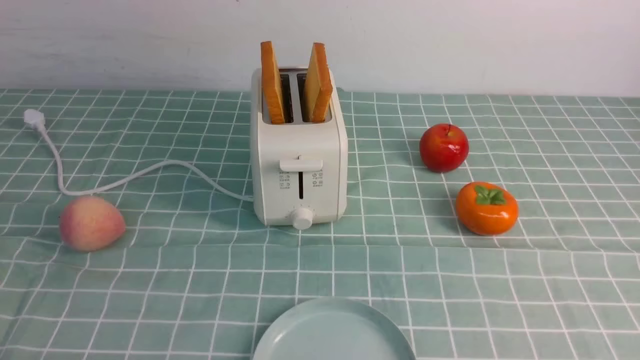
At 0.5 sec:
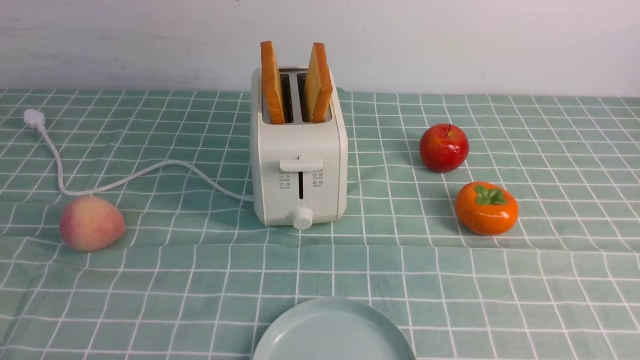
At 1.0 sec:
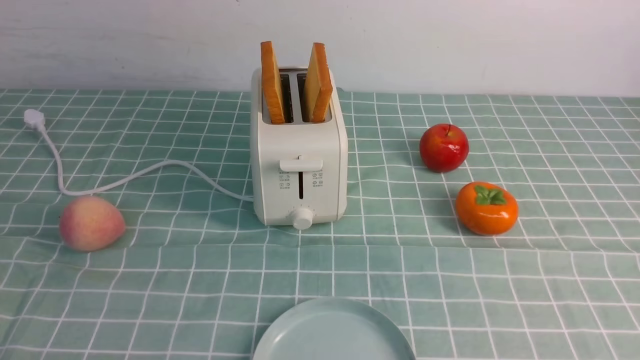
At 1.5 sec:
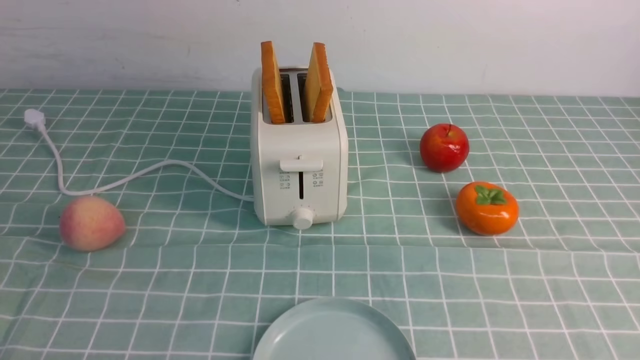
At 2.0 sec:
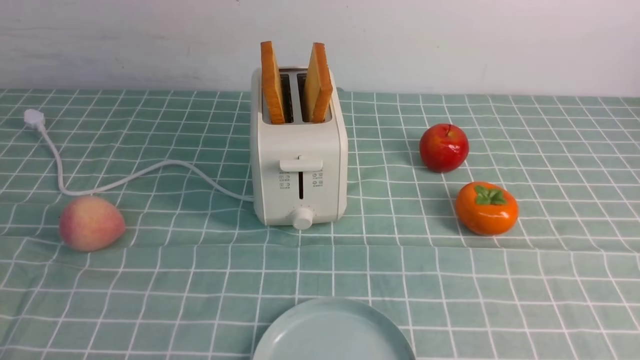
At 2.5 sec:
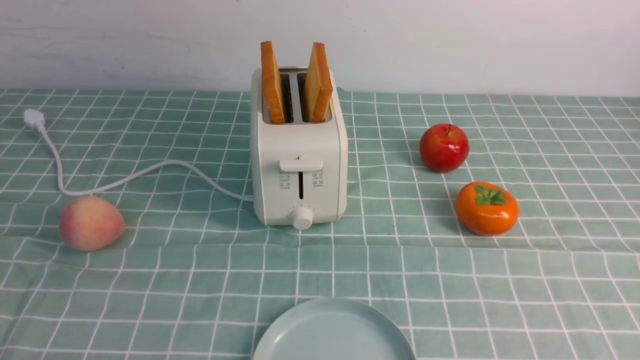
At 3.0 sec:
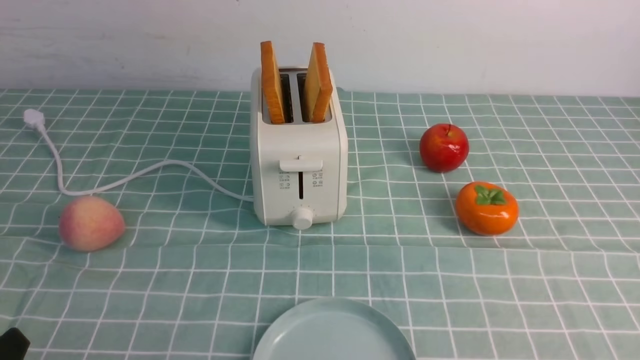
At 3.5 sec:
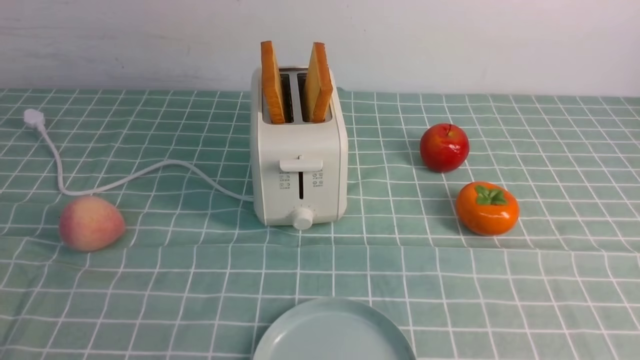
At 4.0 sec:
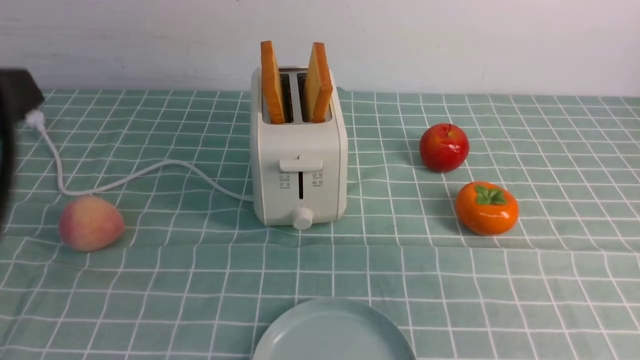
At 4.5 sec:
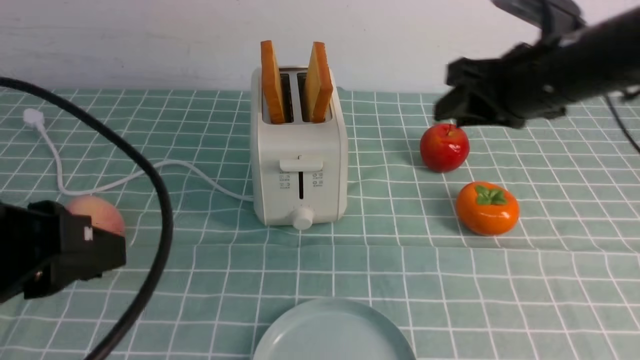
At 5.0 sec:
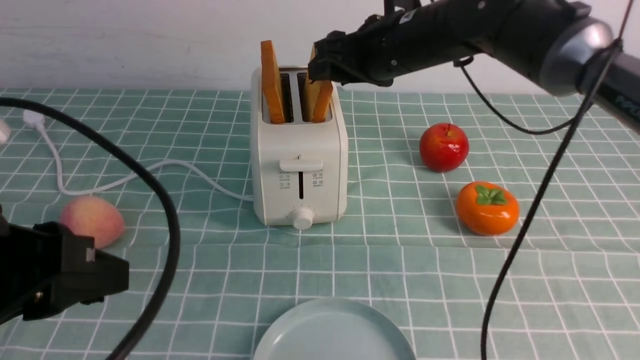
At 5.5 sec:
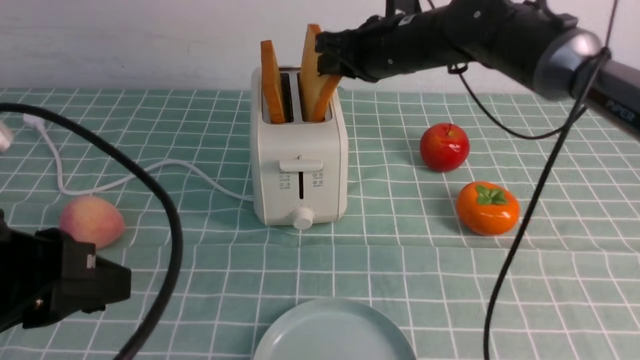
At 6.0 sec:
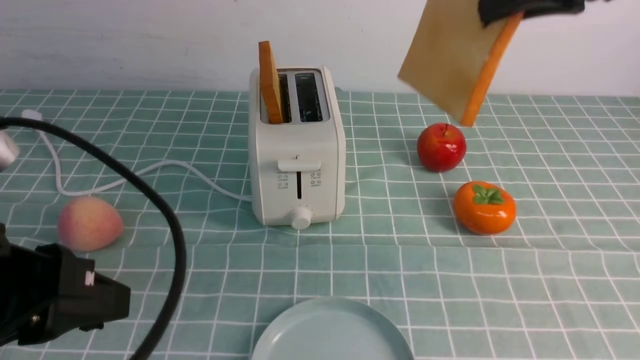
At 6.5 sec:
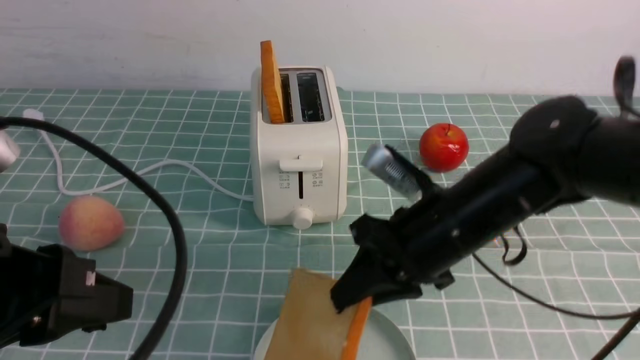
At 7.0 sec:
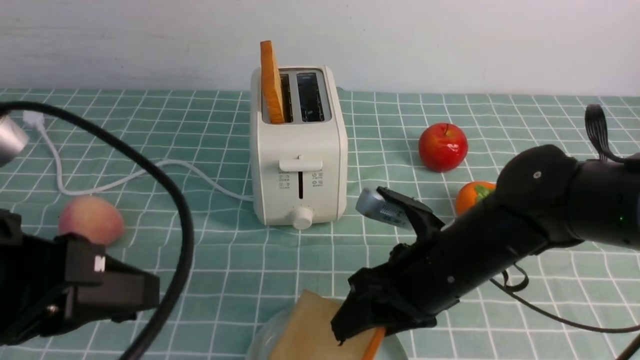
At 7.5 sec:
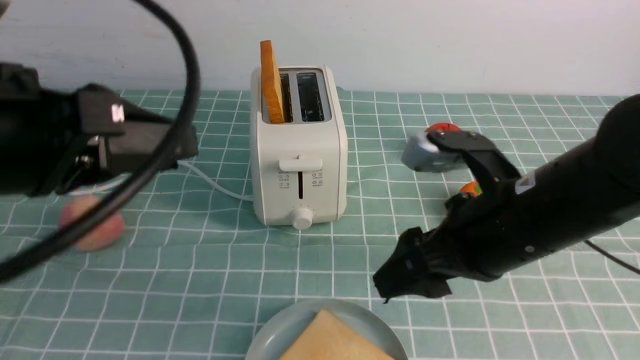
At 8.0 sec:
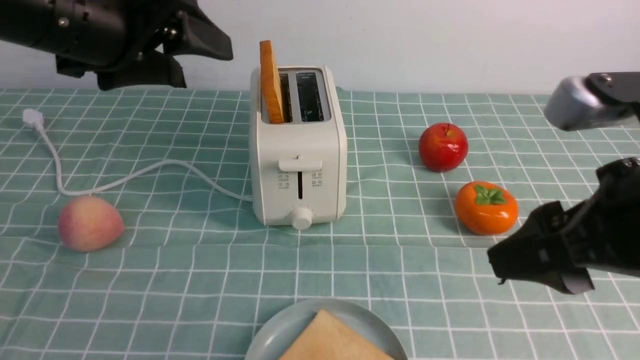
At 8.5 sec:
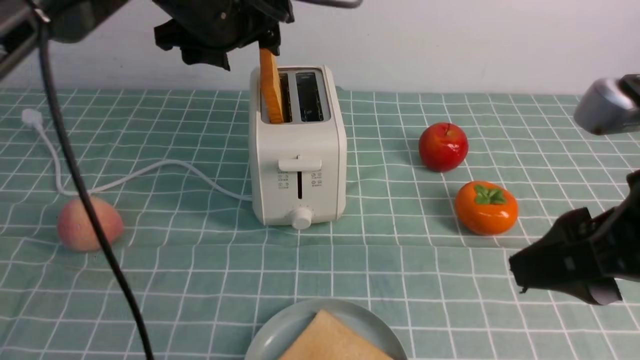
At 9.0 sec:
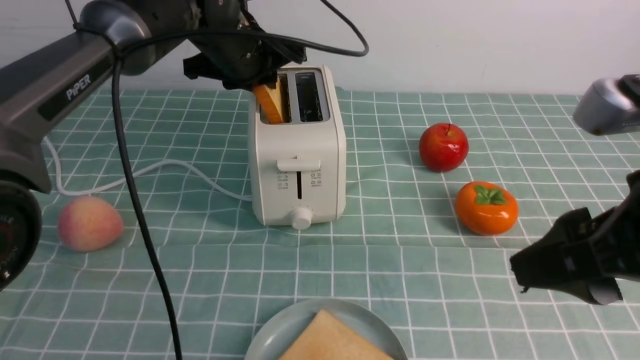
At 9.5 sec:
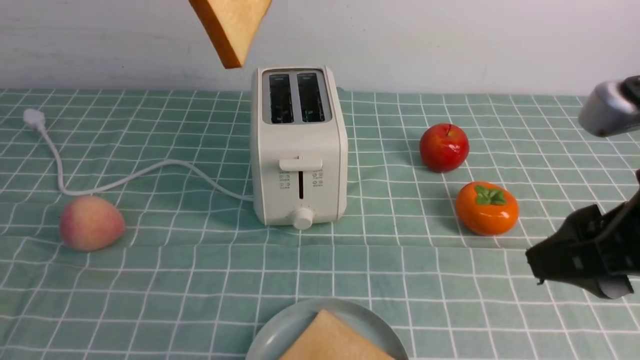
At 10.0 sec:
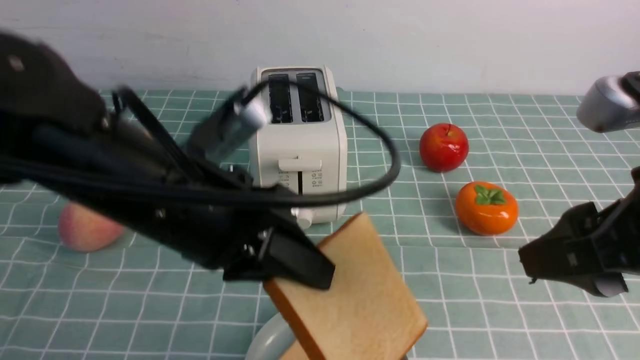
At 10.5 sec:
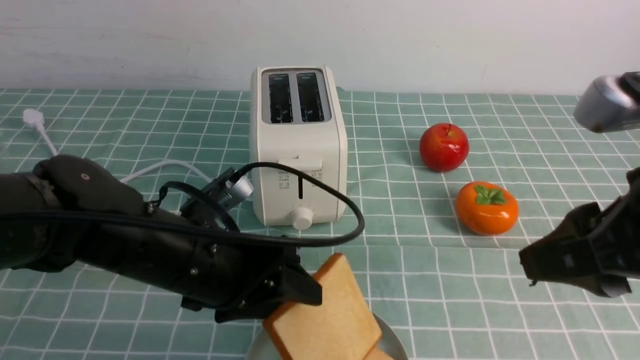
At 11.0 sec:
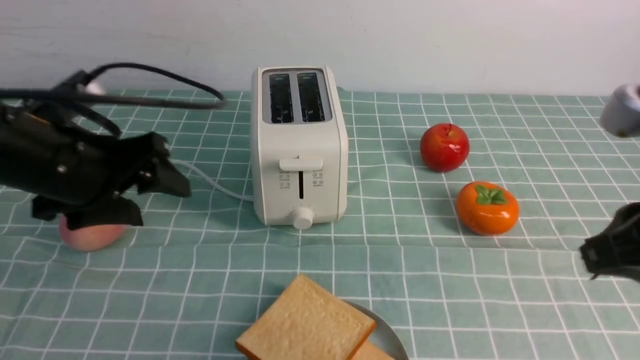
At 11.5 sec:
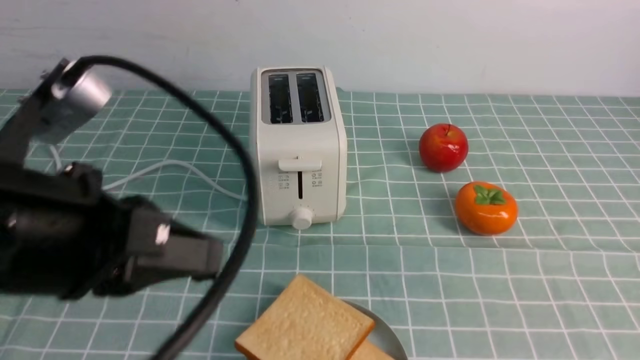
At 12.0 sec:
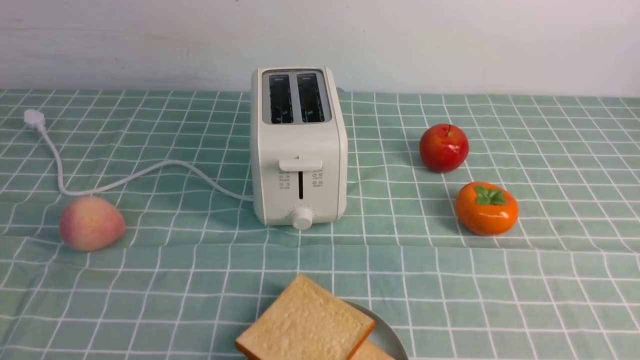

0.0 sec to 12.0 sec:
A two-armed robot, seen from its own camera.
Task of the whole recording: take toasted bread from bread machine on blue coffee table place on plate.
Step, 0.0 sec to 5.5 sec: use the right arm to take out a slice of bread.
Step, 6.0 sec to 7.0 sec: use the right arm to put a slice of bread into the plate.
Step, 7.5 sec to 9.0 sec: use the left arm to take out a slice of bread.
Step, 9.5 sec to 10.5 sec: use the left arm to put a slice of bread into the empty plate.
0.0 sec to 2.0 sec: Both grippers stay about where they are.
2.0 sec to 4.0 sec: The left gripper heads upward, covering some 20 cm. Meanwhile the right gripper heads upward and forward, covering about 30 cm.
4.0 sec to 6.0 sec: The left gripper shifts by about 5 cm, while the right gripper goes about 20 cm forward and to the left.
6.0 sec to 8.0 sec: The left gripper heads forward and upward, covering some 20 cm, and opens its fingers. Meanwhile the right gripper travels backward by some 20 cm, travels downward and back again, approximately 20 cm each way, and opens.
8.0 sec to 10.0 sec: The left gripper travels downward and to the right by some 10 cm, reaches about 15 cm forward, then returns, and closes up.
10.0 sec to 12.0 sec: The left gripper travels backward and to the left by roughly 25 cm, and opens and closes again. Meanwhile the right gripper travels backward, to the right and downward by about 20 cm, and closes up.

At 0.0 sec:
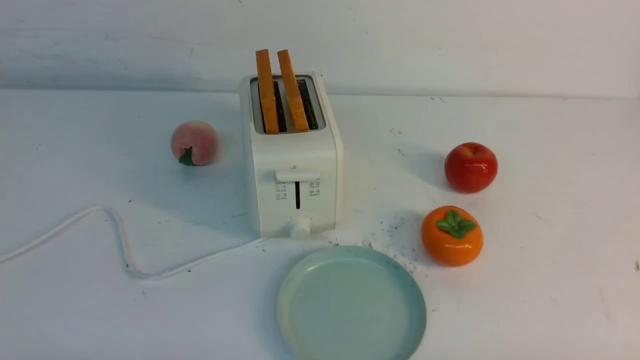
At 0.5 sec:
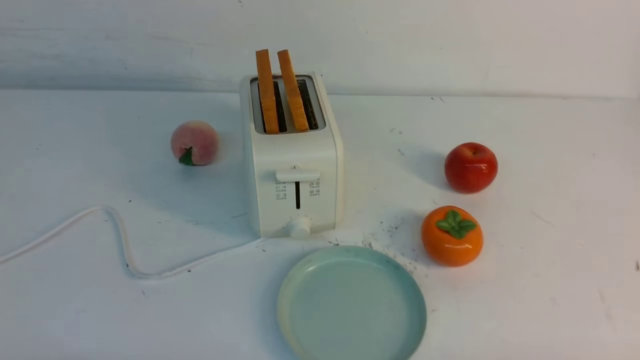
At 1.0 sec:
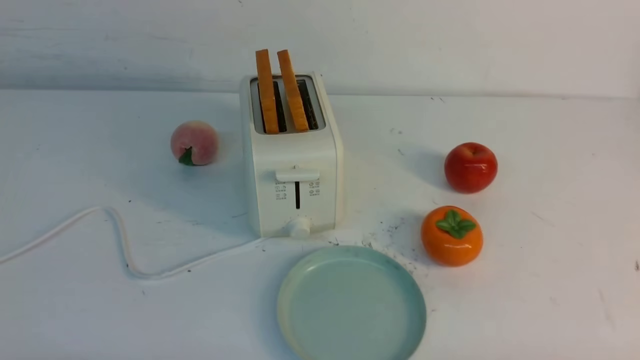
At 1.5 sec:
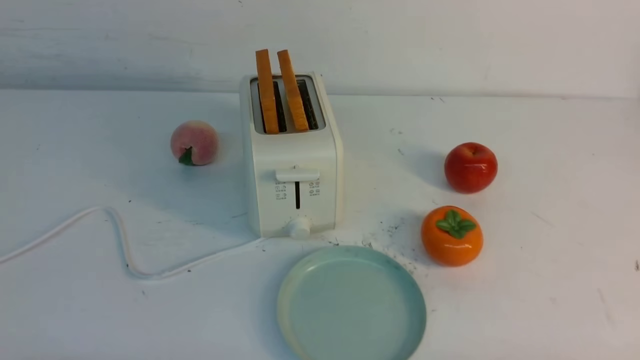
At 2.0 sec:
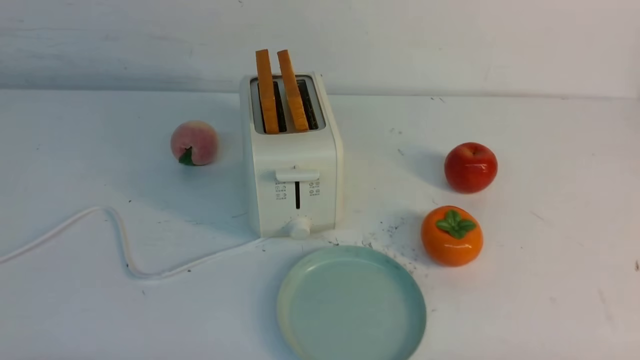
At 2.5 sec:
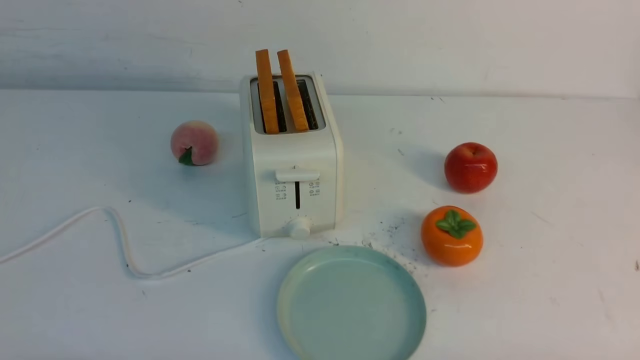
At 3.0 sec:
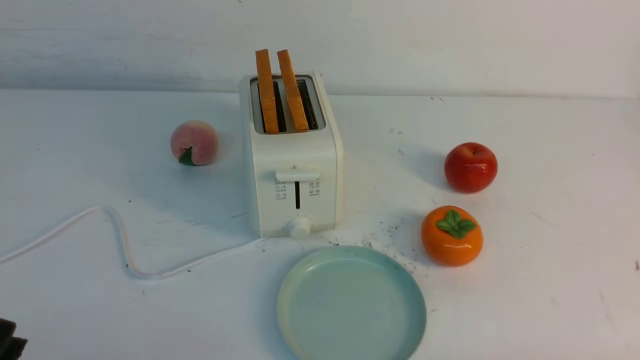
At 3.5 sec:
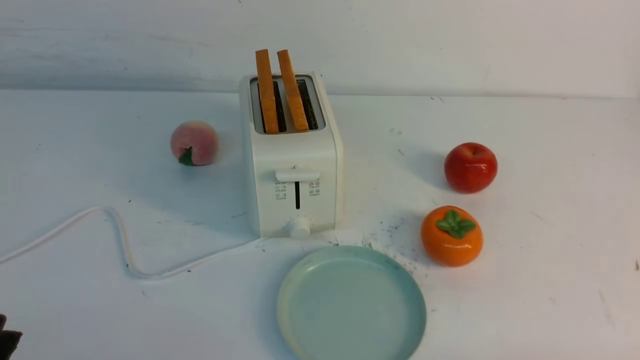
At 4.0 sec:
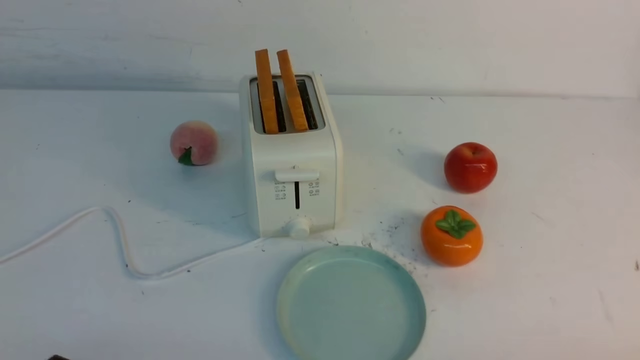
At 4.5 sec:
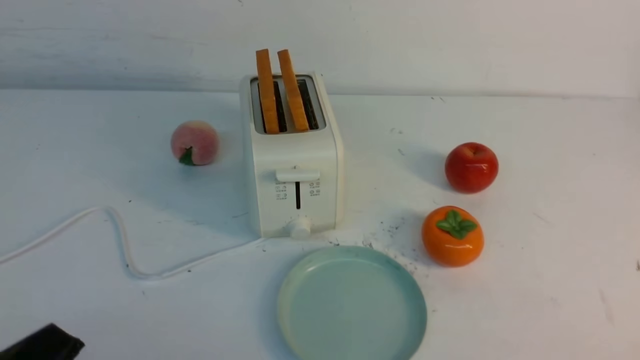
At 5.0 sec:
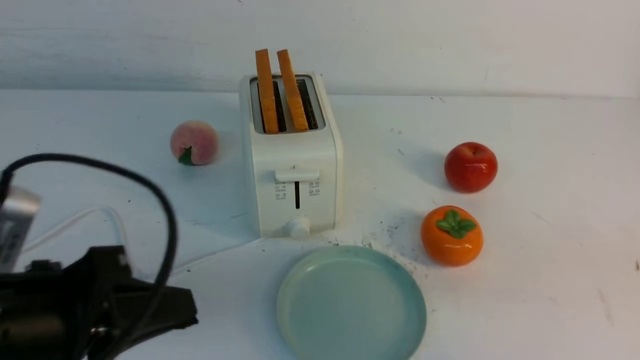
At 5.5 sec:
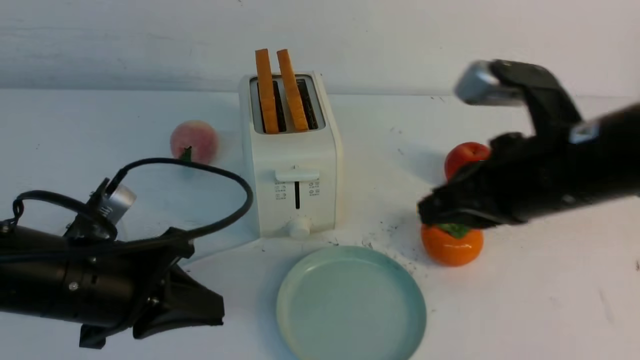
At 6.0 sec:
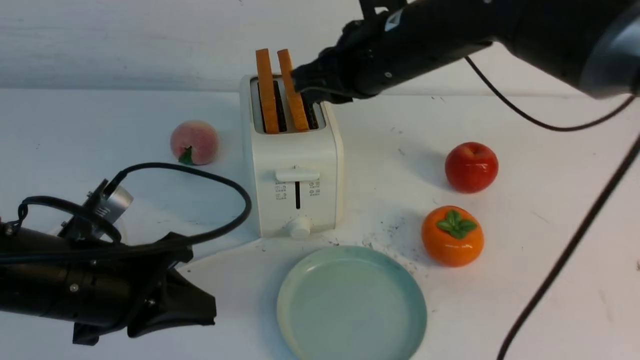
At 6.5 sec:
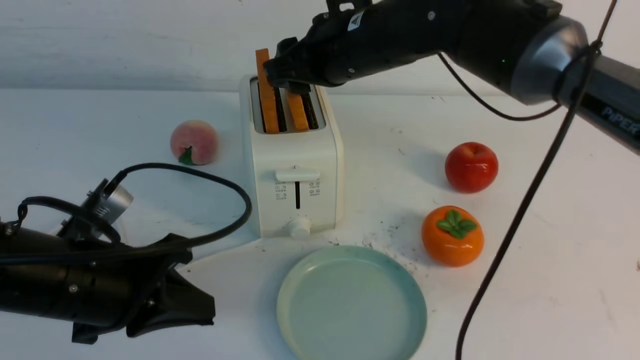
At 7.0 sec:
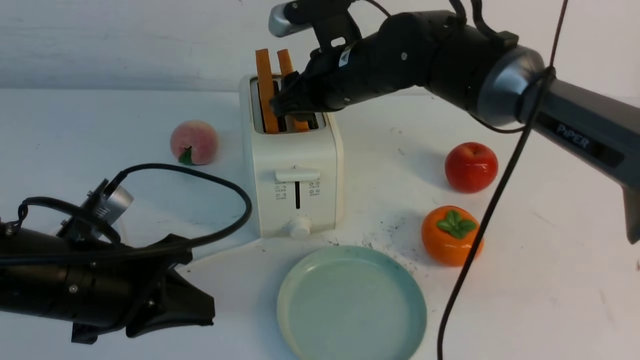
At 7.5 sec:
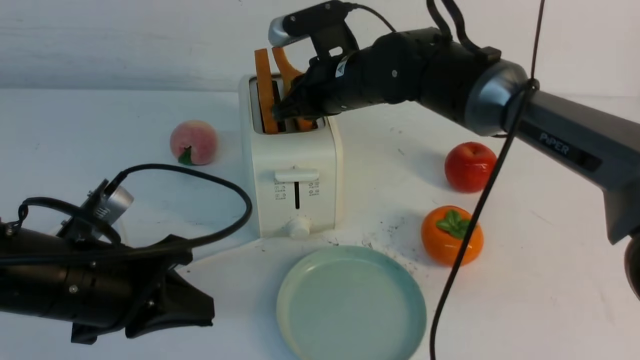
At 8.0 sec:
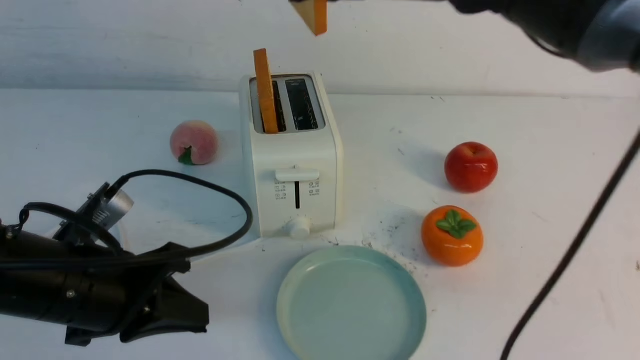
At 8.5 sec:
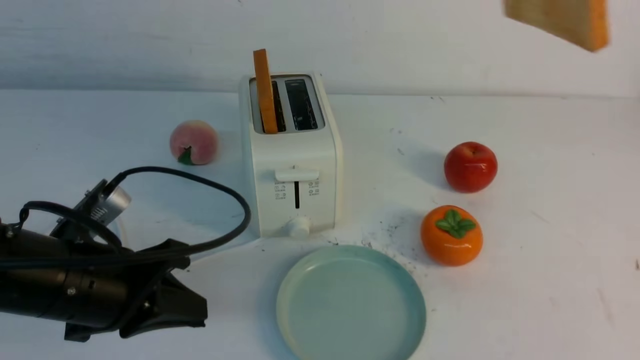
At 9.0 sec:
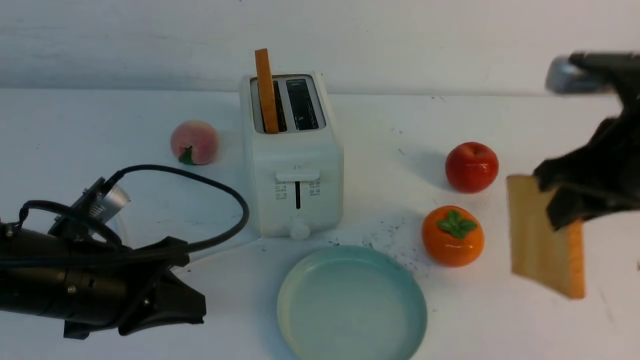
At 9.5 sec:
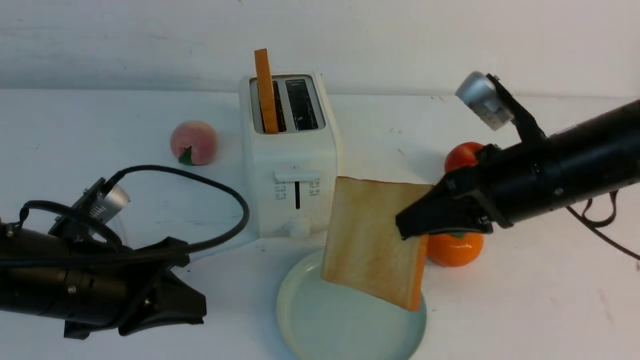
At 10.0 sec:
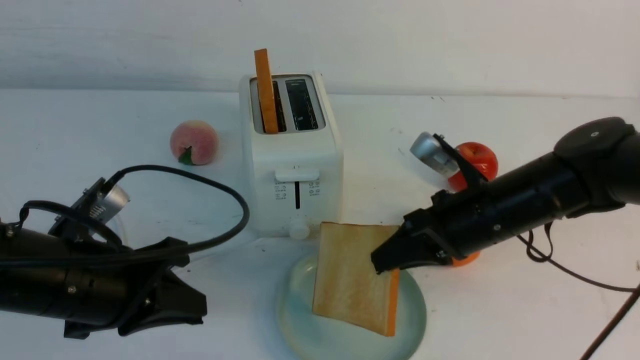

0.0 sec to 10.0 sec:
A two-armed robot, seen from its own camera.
Task of the whole recording: take toasted bread from bread machine on white table place on plate.
Step, 0.0 sec to 7.5 sec: use the right arm to take out a slice of bread.
0.0 sec to 2.0 sec: Neither gripper changes place.
4.0 sec to 6.0 sec: The right gripper is displaced forward, to the left and upward by about 40 cm. The left gripper is displaced forward by about 15 cm.
6.0 sec to 8.0 sec: The right gripper moves upward, about 10 cm, and opens, then closes once more.
8.0 sec to 10.0 sec: The right gripper travels downward and to the right by about 25 cm.
